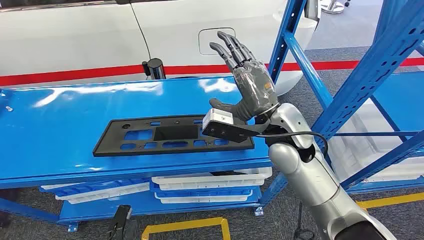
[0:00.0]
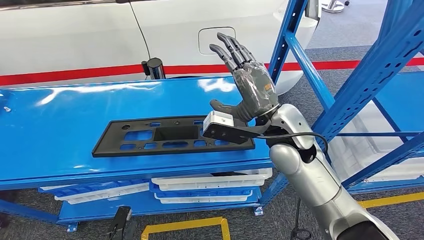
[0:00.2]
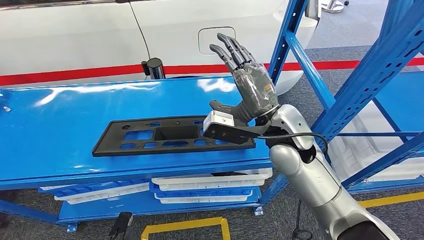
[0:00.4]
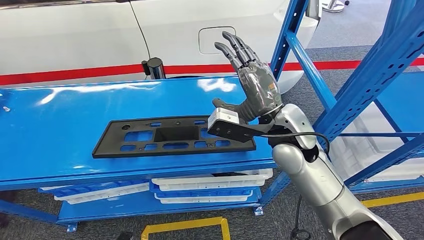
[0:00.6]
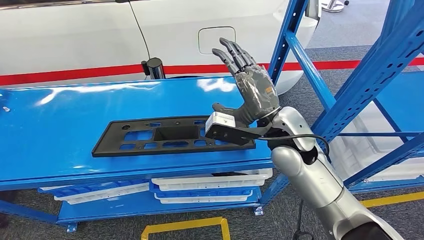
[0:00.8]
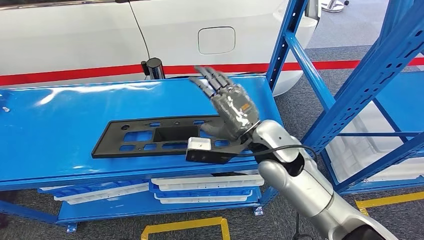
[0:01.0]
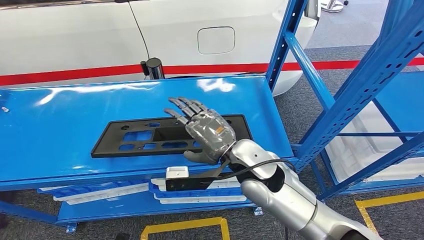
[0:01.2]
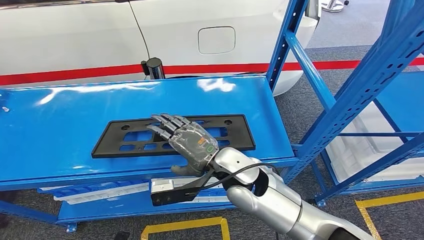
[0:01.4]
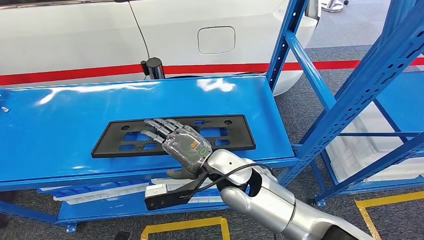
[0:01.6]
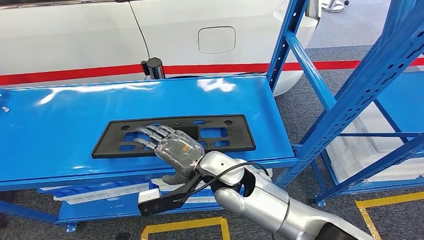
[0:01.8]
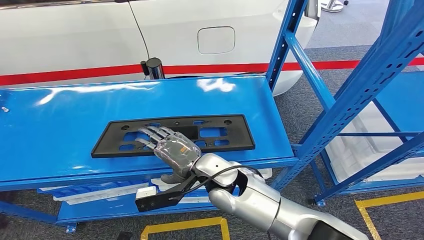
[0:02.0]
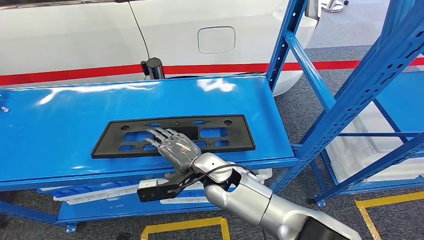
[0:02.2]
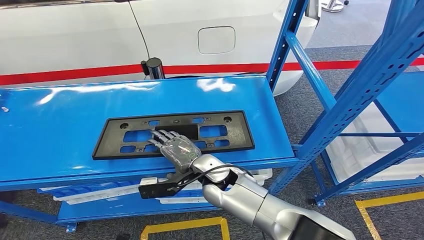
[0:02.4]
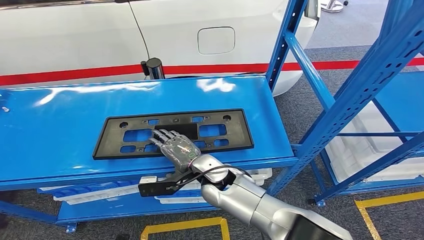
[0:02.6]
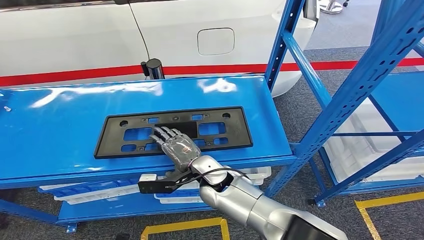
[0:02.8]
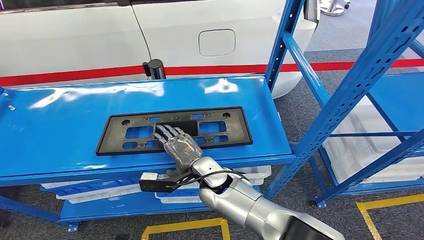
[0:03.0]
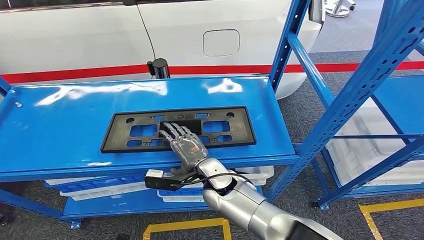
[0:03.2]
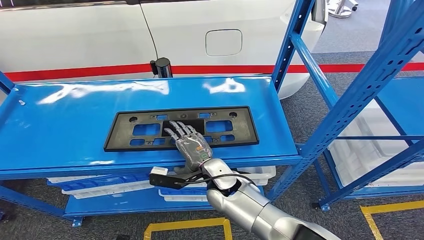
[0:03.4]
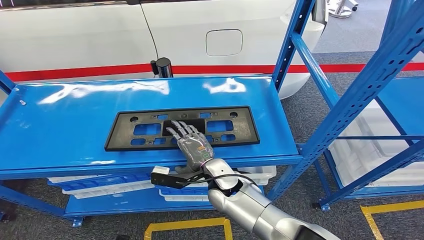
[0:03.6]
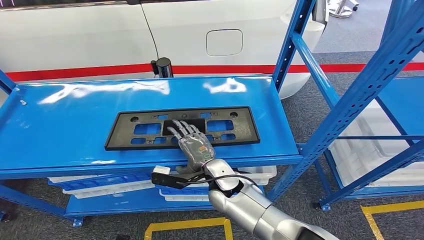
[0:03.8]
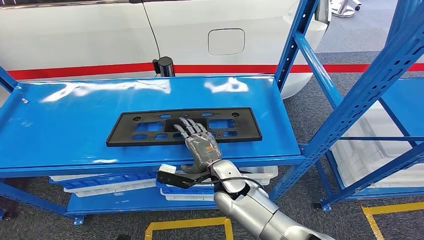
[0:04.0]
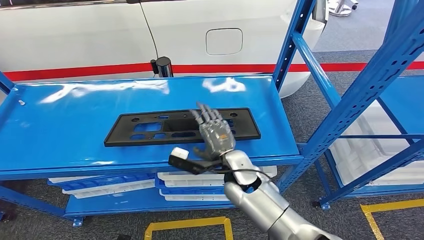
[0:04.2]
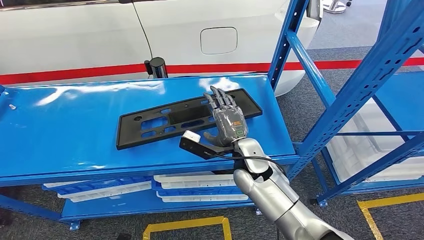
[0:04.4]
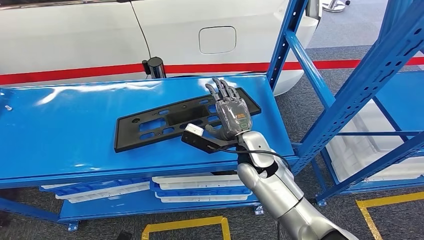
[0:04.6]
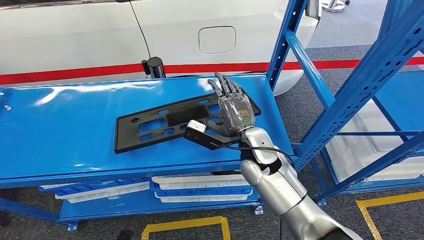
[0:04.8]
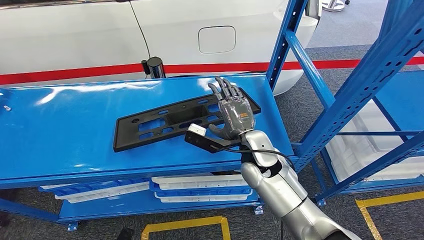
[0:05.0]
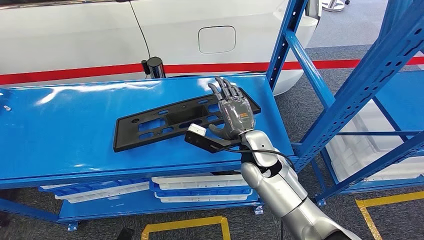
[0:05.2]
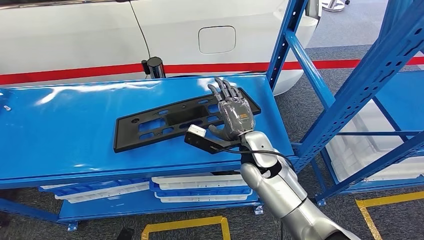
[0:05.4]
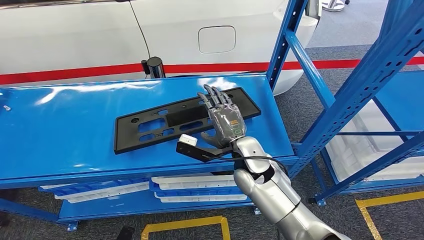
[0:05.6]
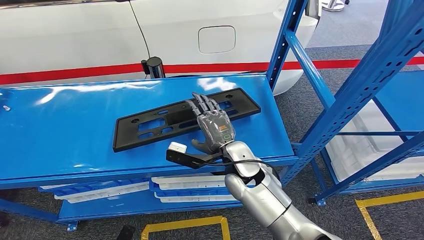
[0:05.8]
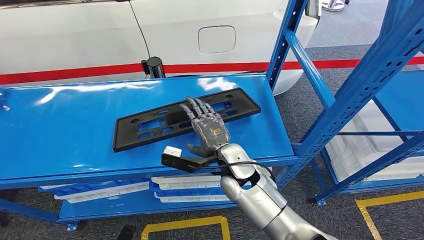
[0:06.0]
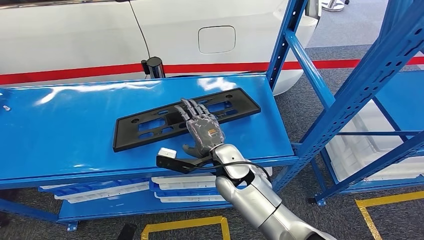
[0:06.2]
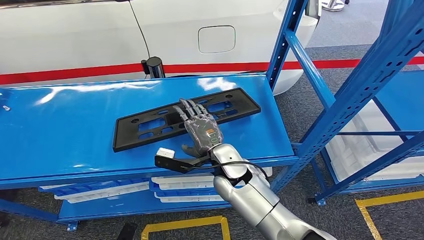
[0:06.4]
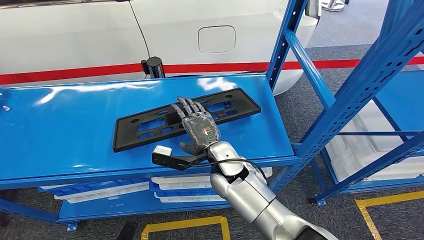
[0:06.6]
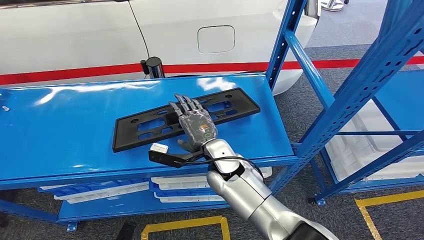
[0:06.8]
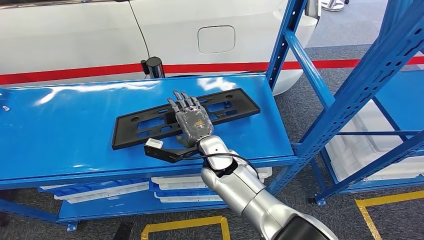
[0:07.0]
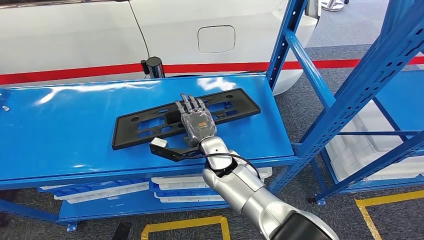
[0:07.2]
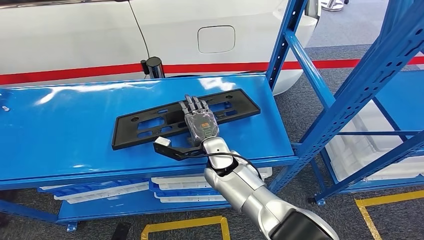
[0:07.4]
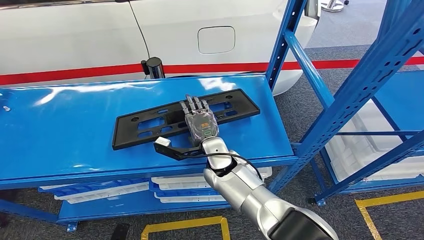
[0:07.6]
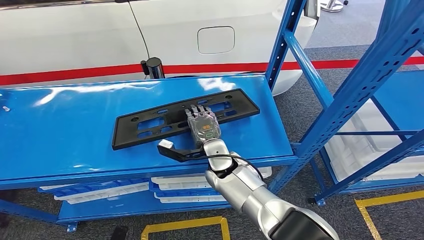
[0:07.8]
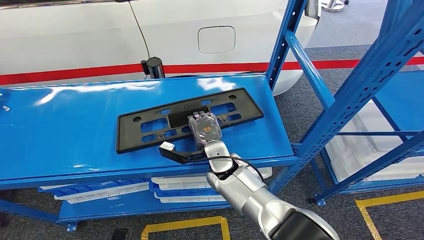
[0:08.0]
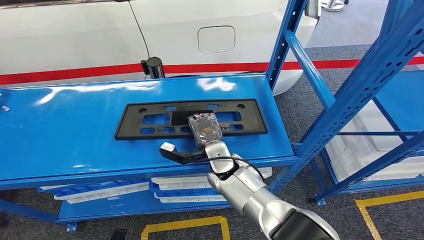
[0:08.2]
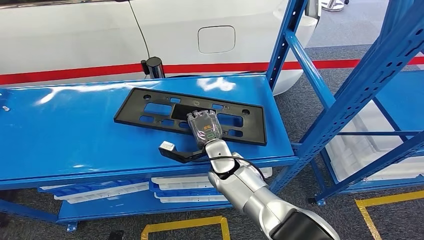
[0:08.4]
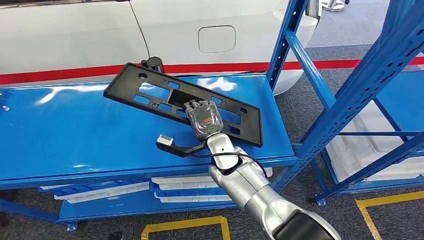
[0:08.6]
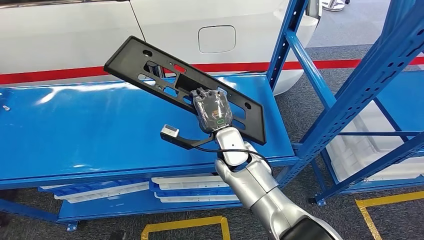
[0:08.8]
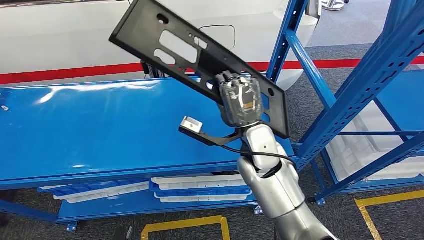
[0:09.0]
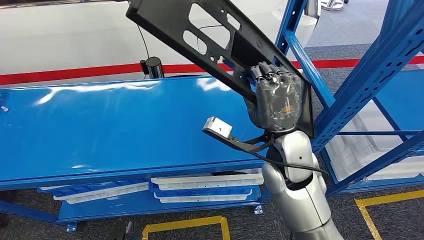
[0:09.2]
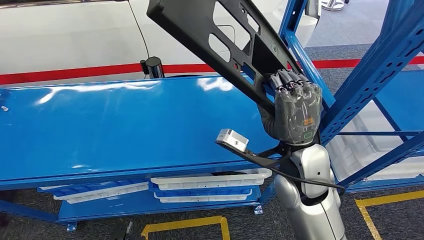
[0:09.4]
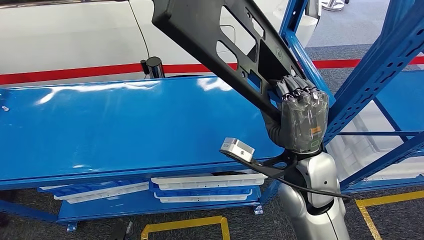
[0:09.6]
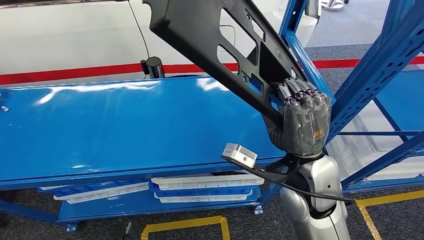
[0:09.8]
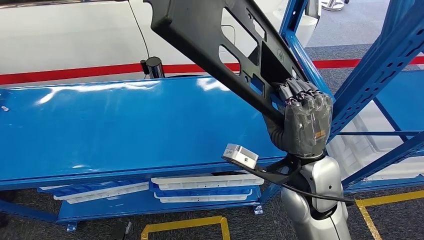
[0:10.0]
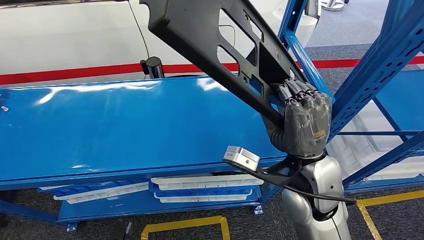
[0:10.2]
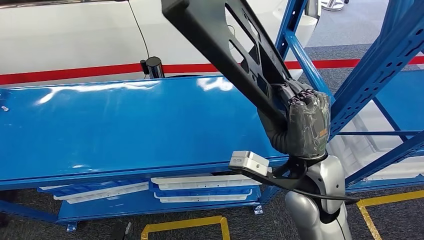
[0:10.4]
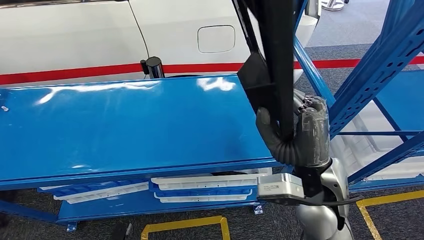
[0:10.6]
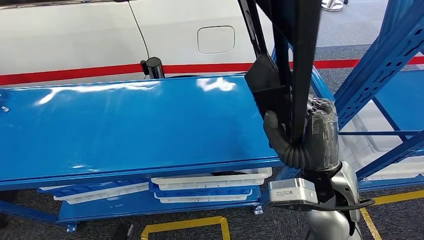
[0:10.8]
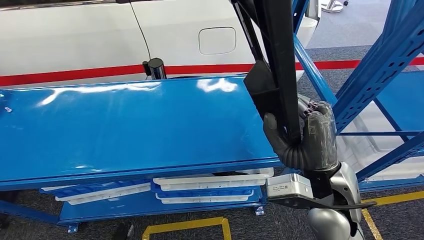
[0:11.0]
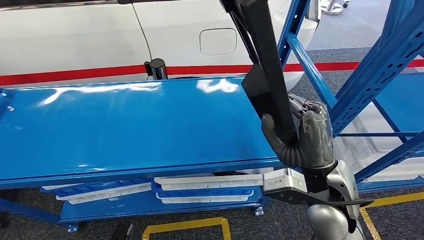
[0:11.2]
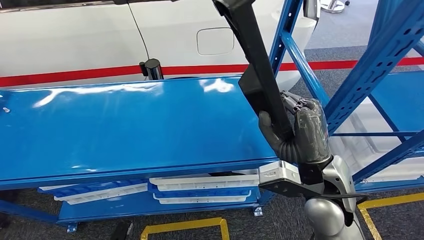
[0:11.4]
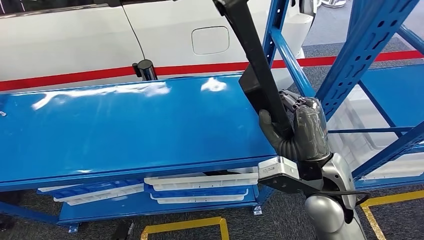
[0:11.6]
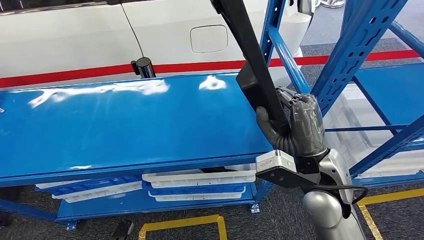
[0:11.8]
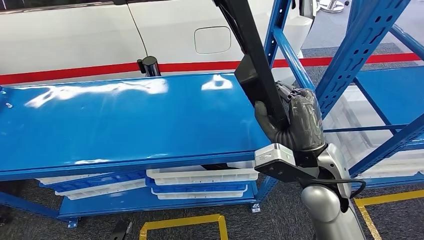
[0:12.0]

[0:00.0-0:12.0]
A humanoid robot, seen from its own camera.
0:04.4 to 0:06.0: The hands stay close to where they were, moving slightly.

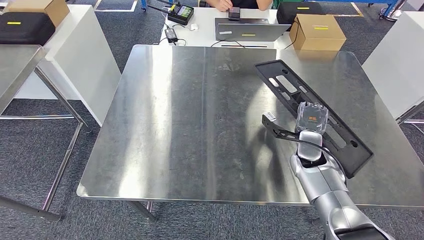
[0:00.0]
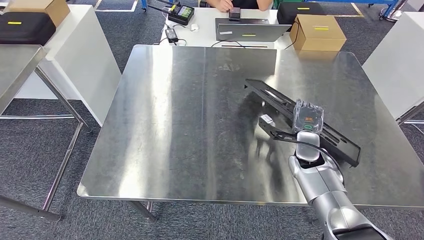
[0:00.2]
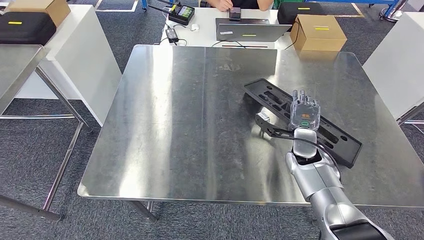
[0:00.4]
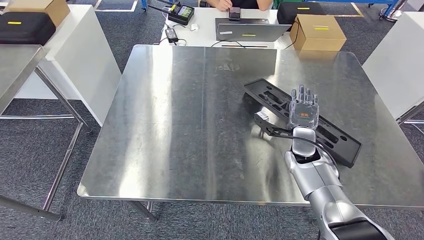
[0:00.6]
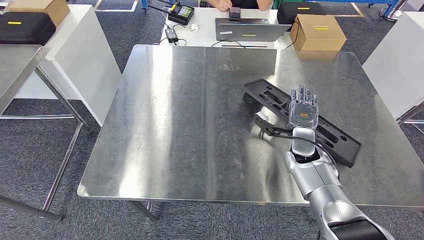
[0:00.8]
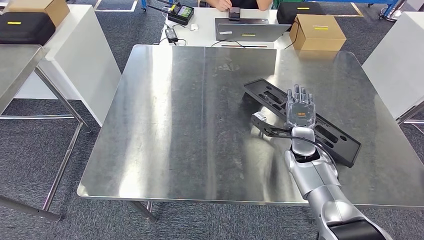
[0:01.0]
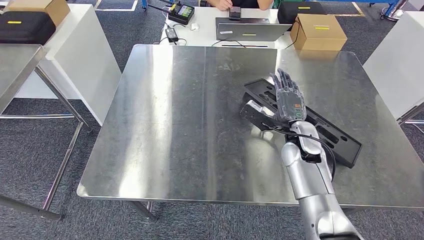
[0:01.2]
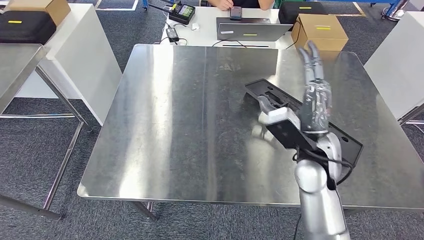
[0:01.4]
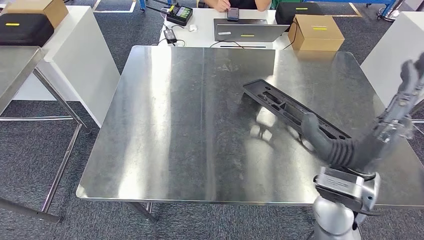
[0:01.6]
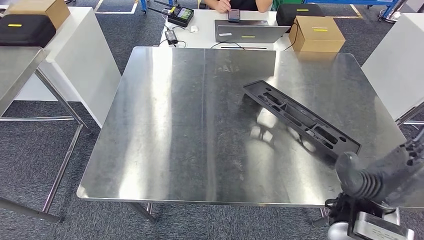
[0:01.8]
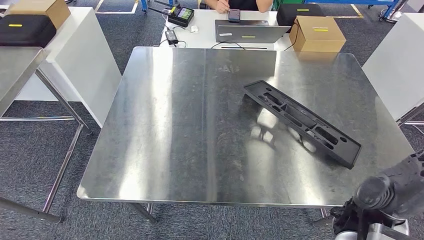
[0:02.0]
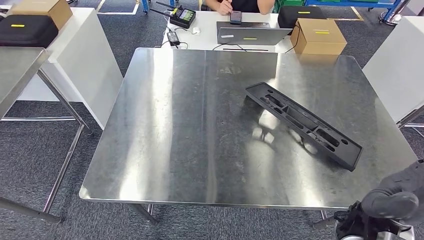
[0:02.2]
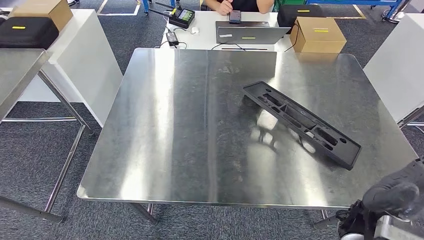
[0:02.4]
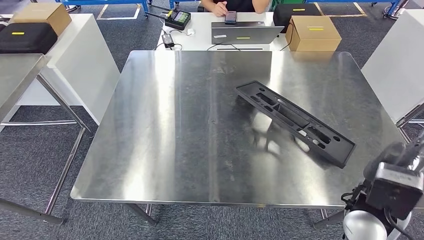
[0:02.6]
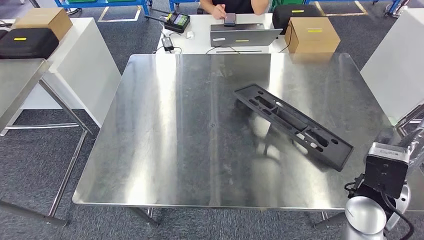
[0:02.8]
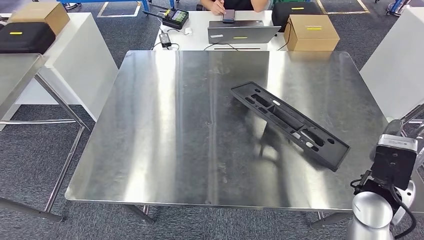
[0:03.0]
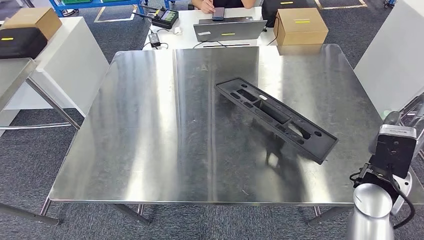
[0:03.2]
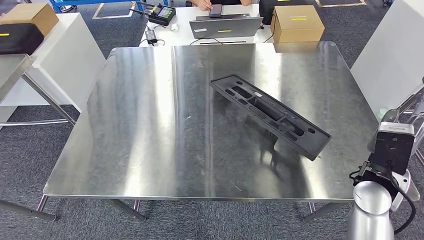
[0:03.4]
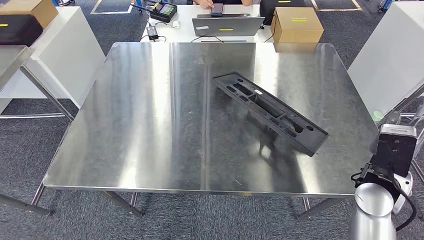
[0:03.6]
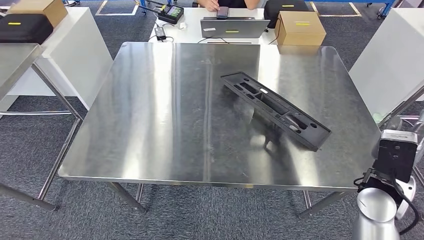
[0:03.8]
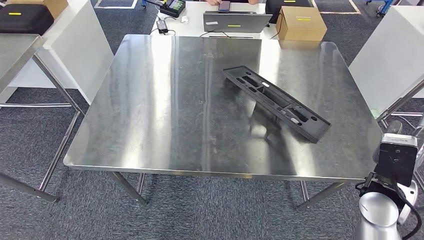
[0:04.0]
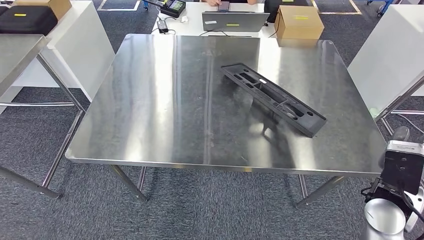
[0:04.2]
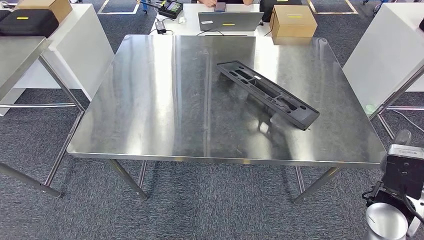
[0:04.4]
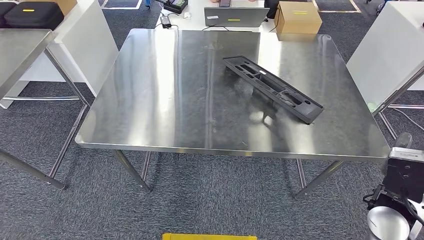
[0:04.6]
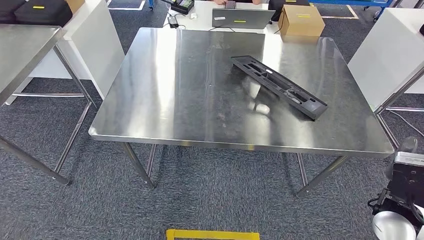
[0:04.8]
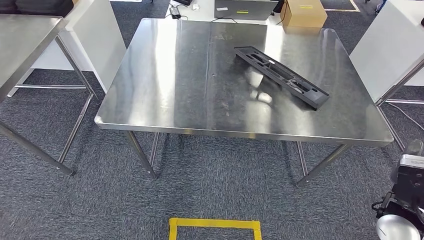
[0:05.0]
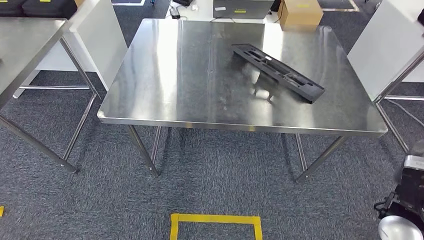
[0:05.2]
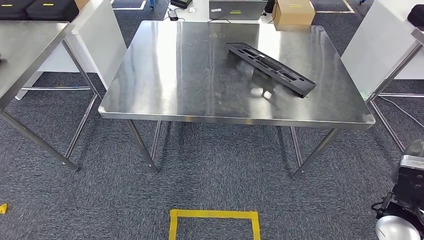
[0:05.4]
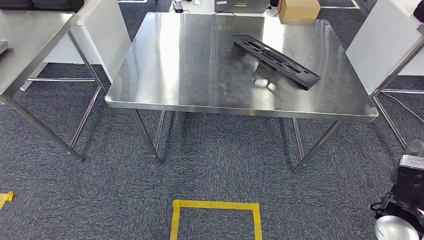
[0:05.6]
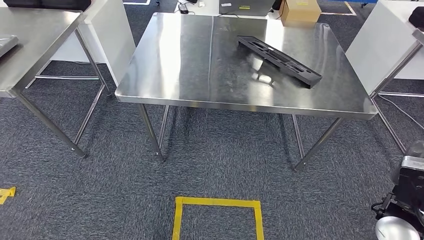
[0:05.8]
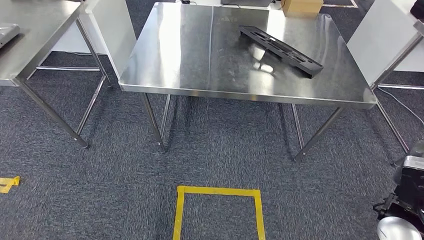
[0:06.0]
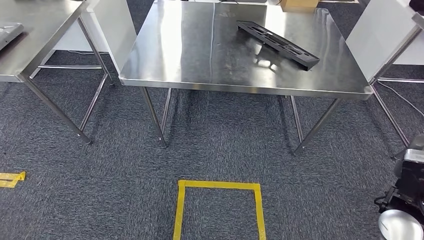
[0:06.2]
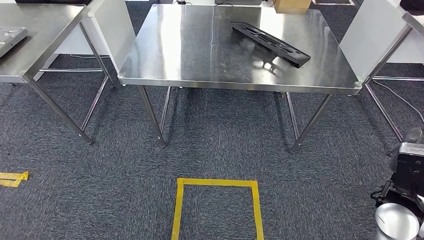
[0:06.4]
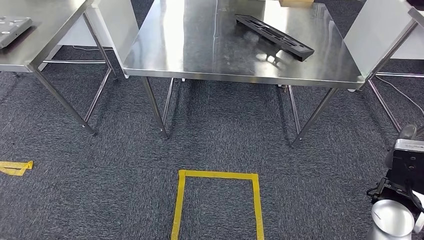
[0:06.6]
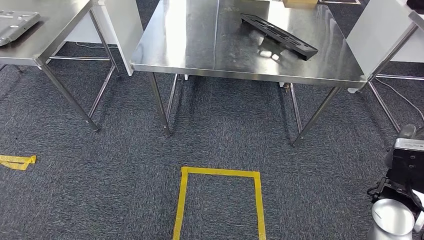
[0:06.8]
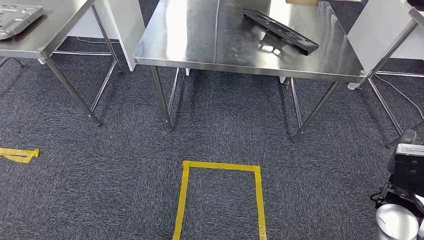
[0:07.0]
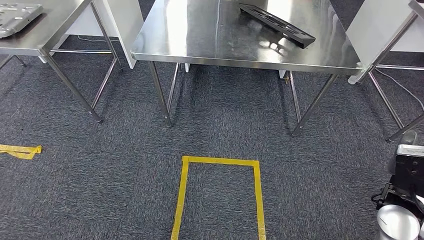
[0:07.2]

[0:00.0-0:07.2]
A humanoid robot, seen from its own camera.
0:00.0 to 0:01.4: The right hand shifts approximately 15 cm upward and to the left.
